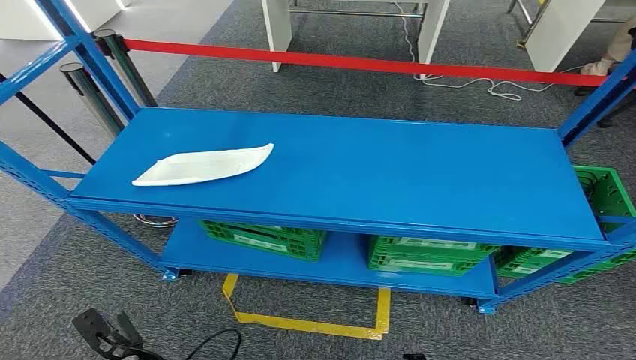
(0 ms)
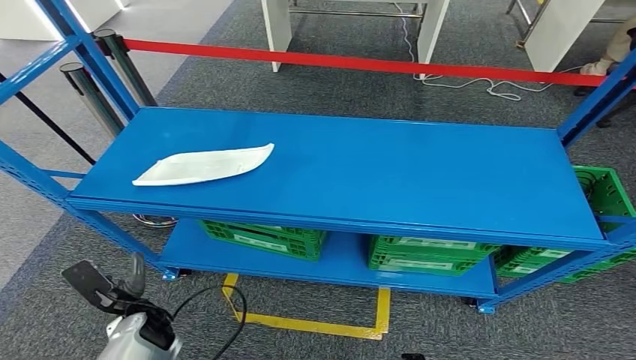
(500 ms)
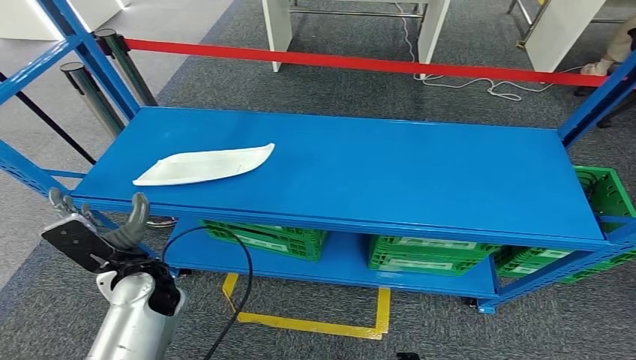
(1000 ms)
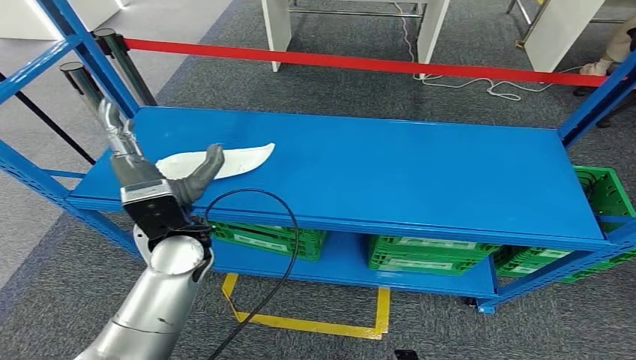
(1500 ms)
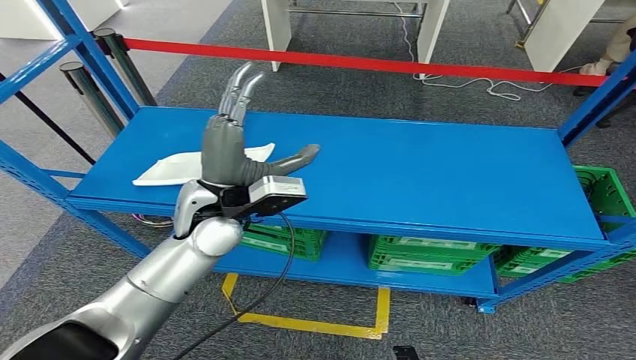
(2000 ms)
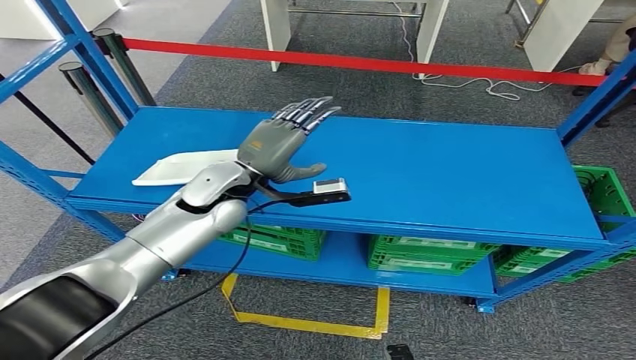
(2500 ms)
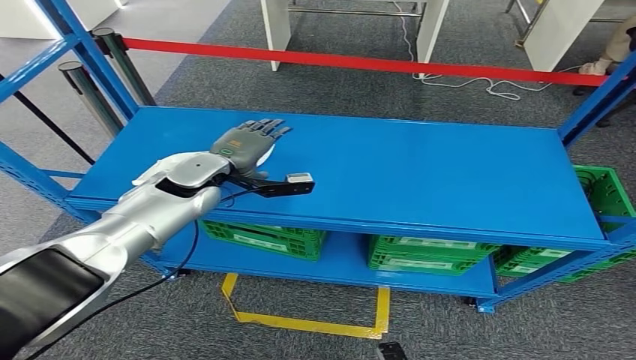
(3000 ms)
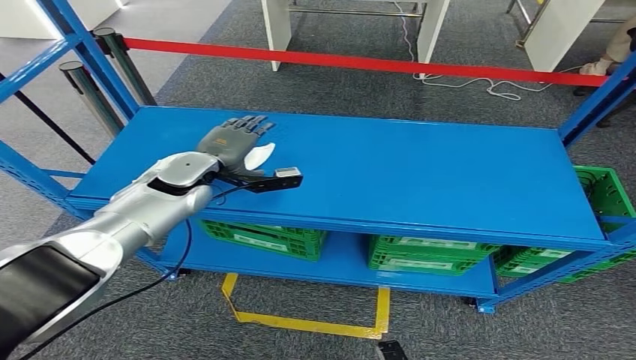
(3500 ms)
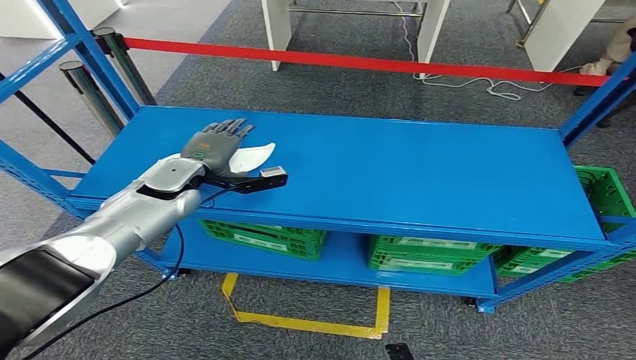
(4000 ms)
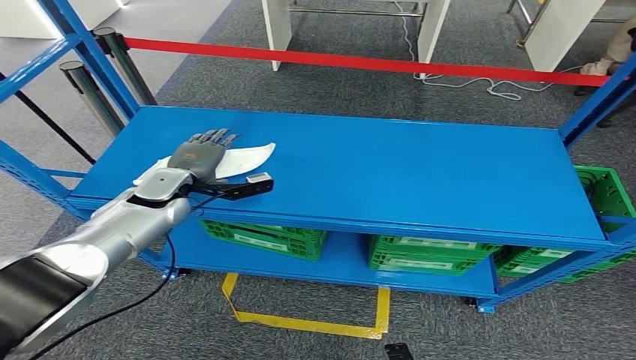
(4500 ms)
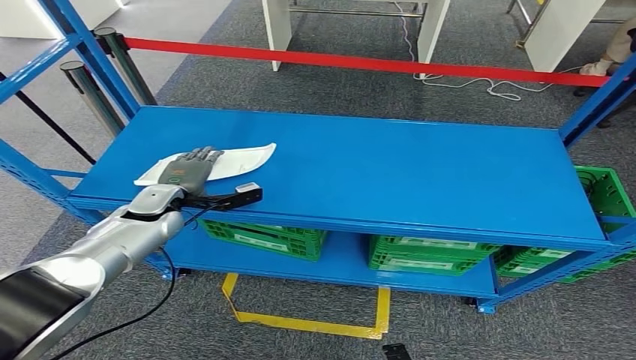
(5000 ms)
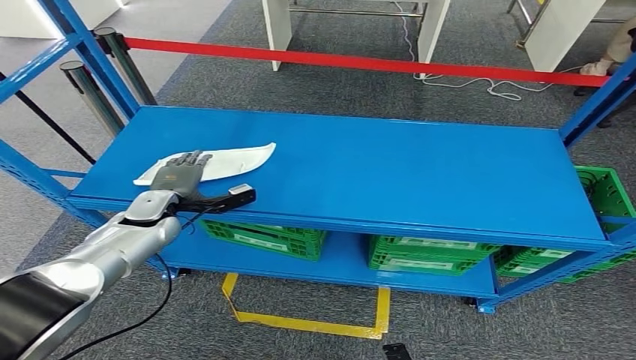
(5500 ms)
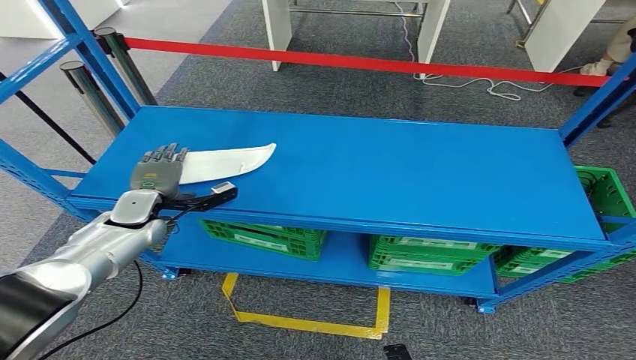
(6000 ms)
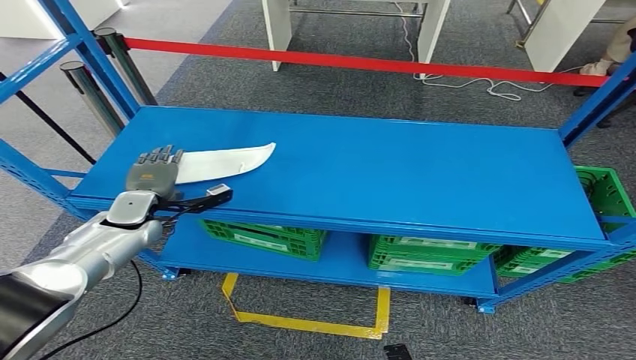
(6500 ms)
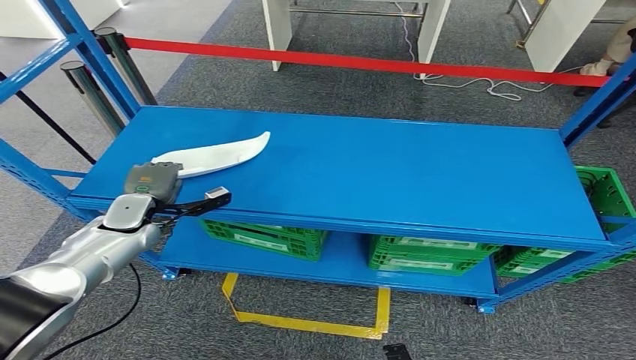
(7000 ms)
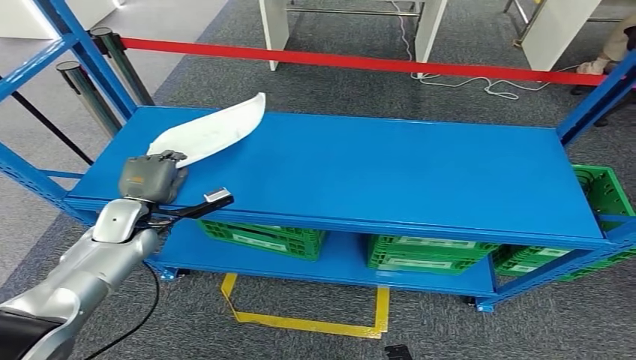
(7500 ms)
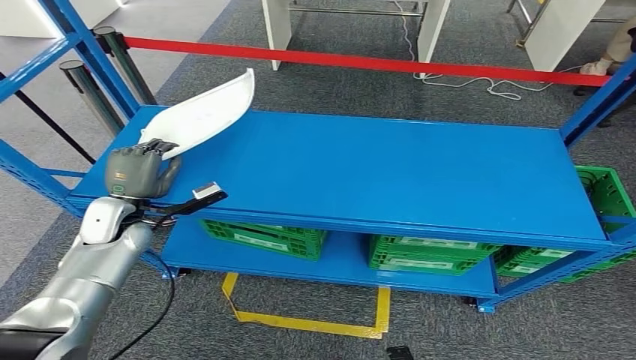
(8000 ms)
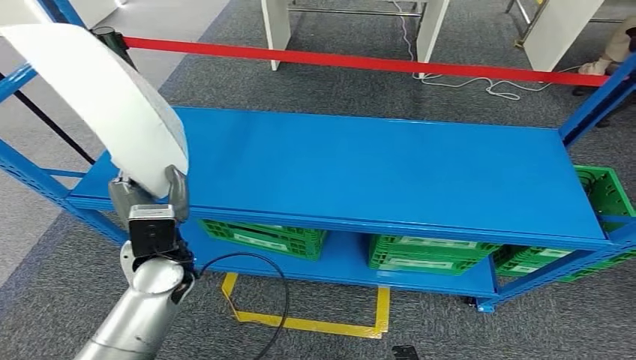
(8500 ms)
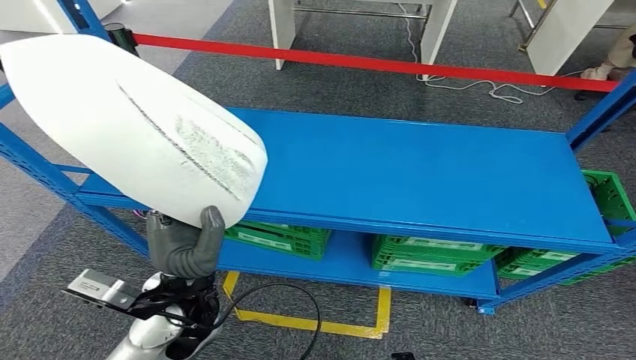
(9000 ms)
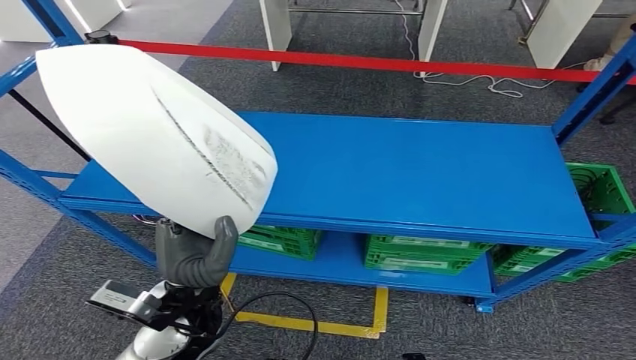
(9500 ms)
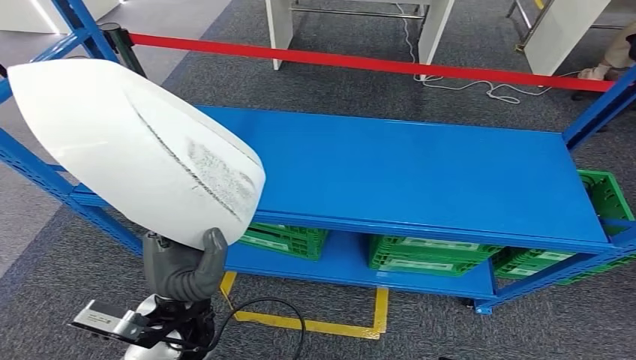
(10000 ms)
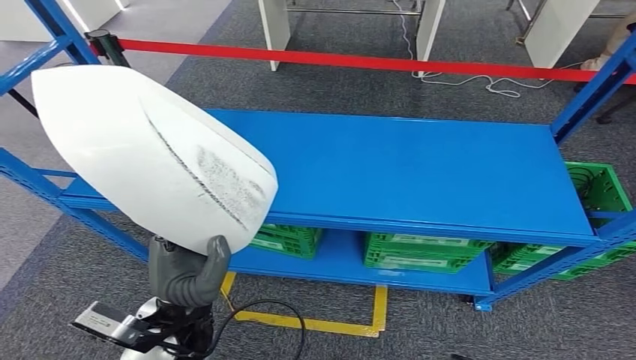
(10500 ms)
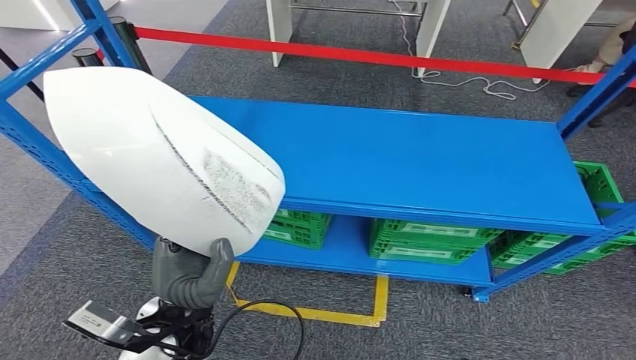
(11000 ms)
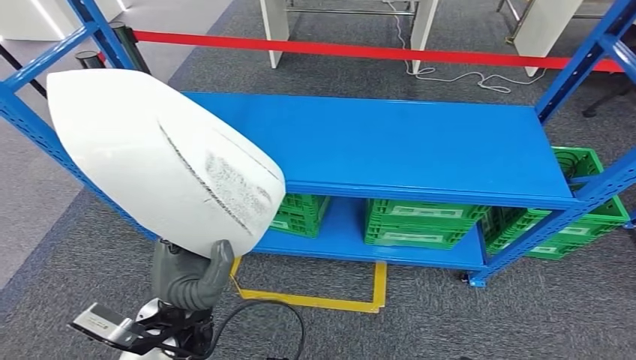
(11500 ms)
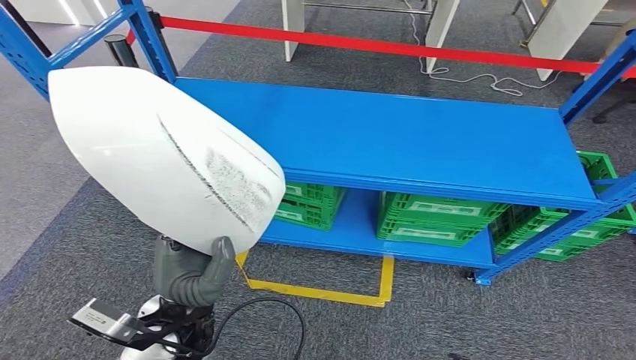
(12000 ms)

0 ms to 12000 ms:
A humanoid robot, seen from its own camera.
Step, 0 ms to 9500 ms: Pick up the small parts from the shelf.
2000 ms to 4000 ms: The left hand is displaced to the left, forward and downward by approximately 15 cm.
4000 ms to 6000 ms: The left hand heads to the left and downward, covering some 10 cm.

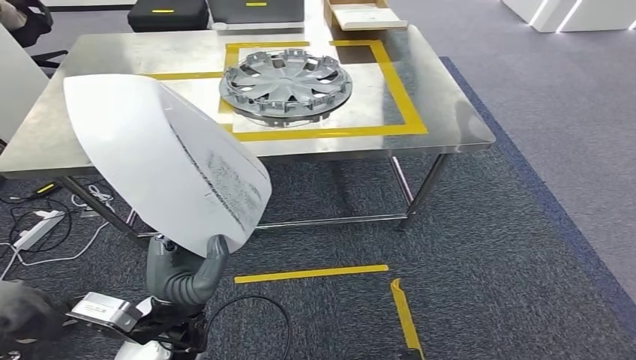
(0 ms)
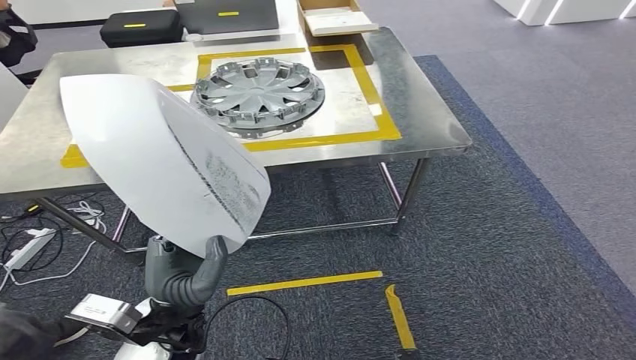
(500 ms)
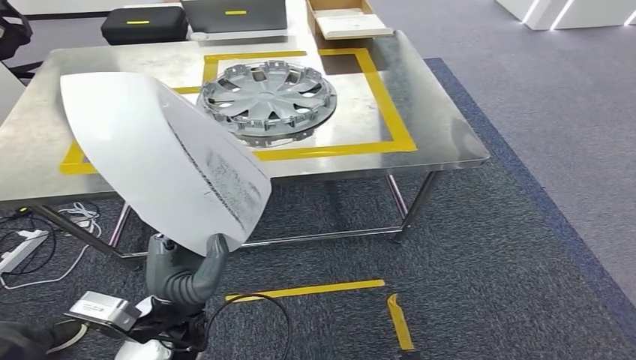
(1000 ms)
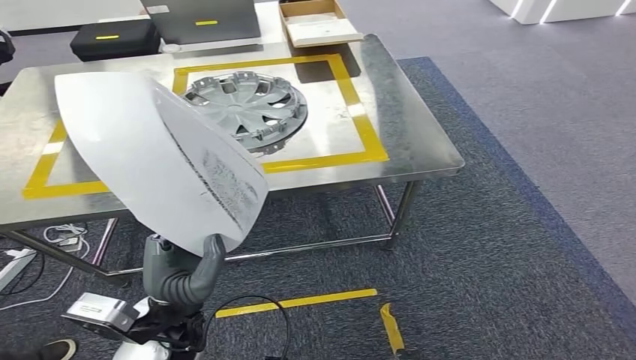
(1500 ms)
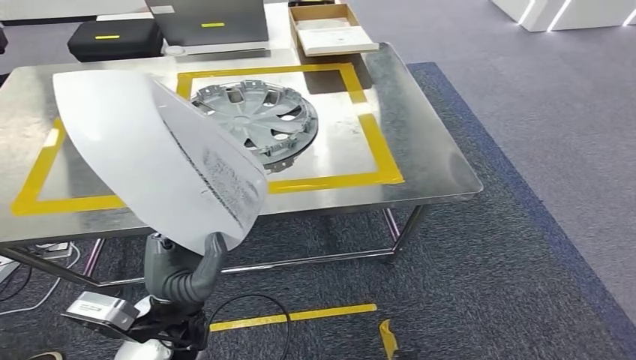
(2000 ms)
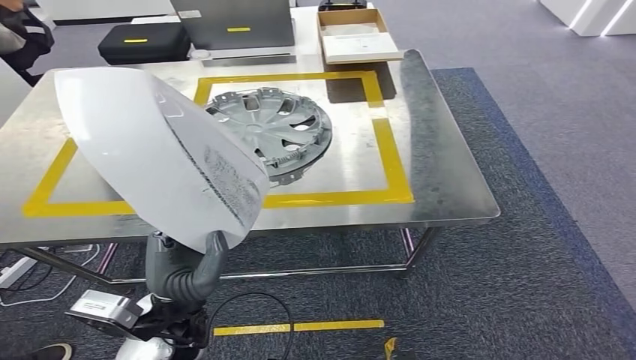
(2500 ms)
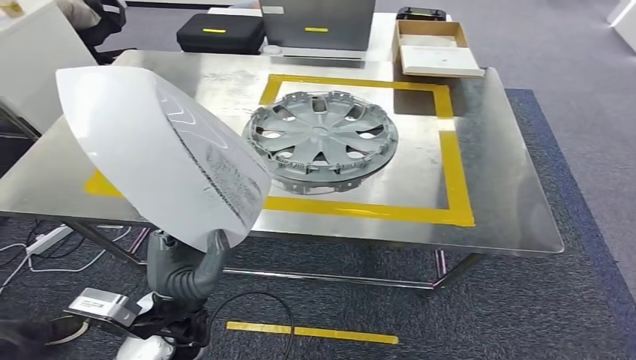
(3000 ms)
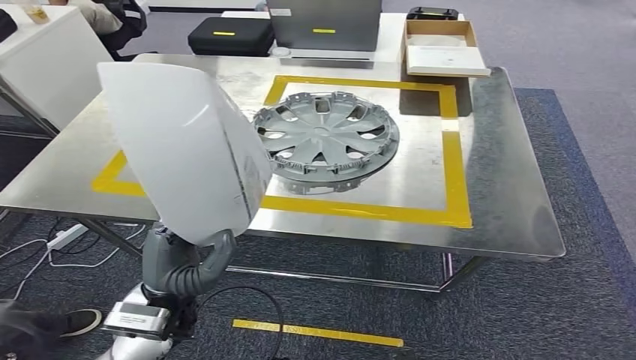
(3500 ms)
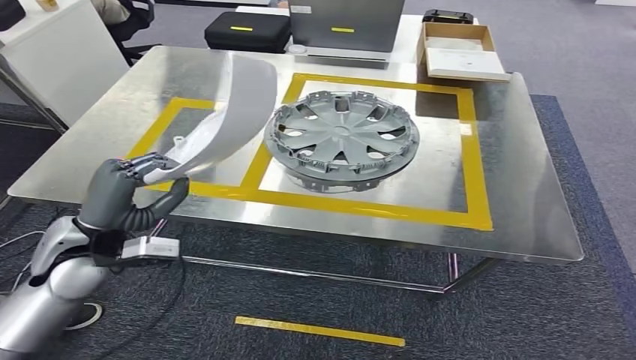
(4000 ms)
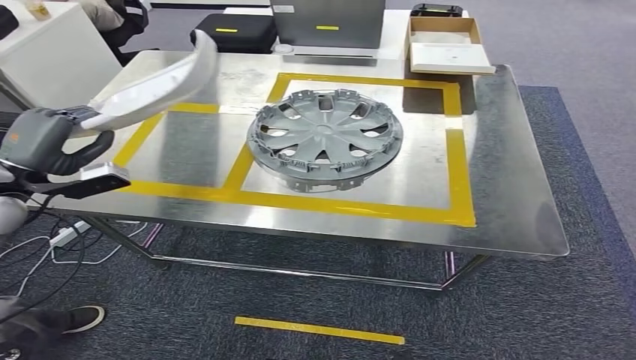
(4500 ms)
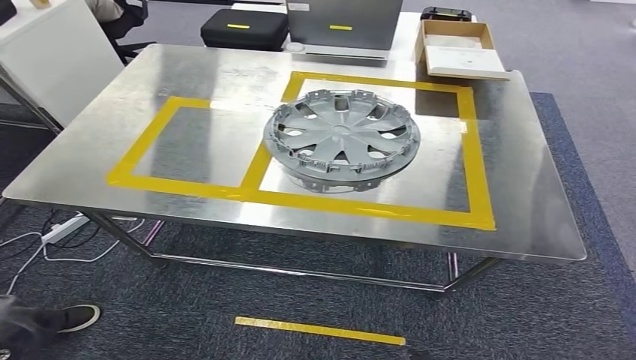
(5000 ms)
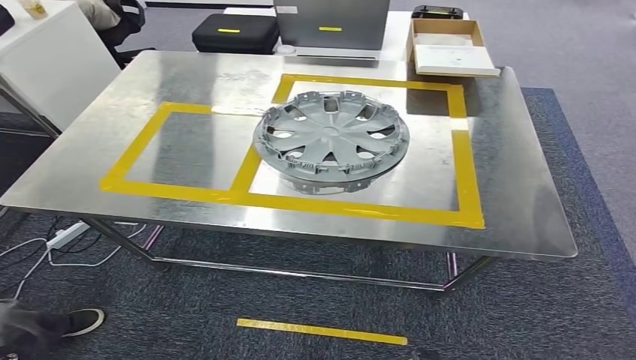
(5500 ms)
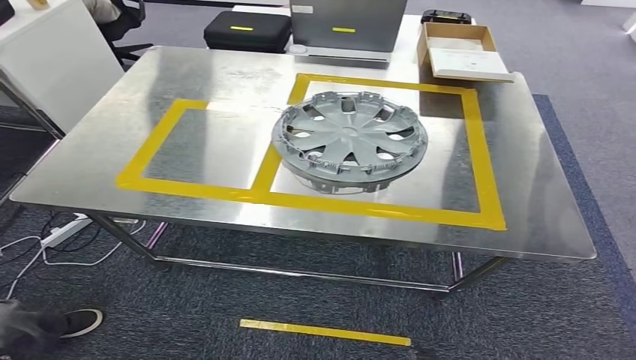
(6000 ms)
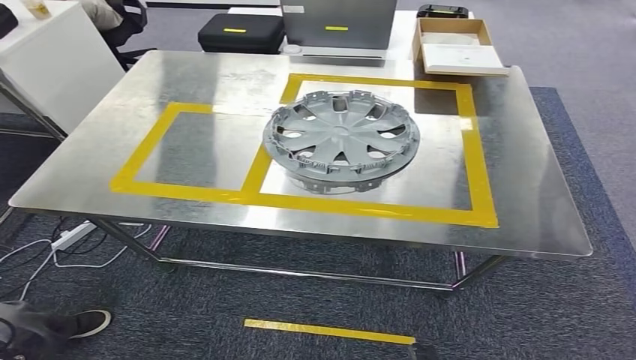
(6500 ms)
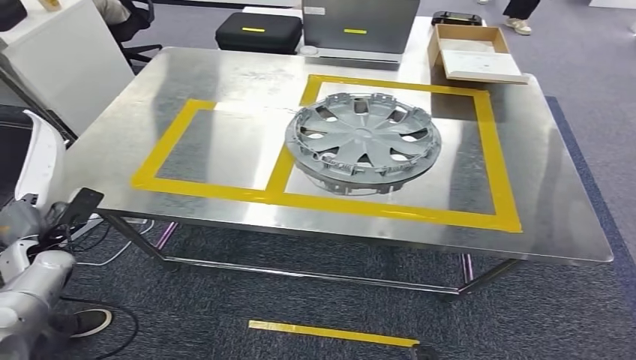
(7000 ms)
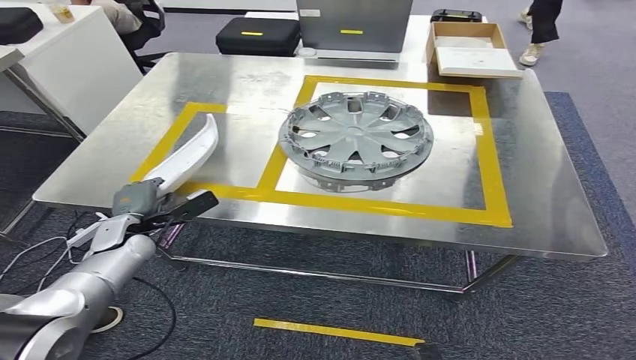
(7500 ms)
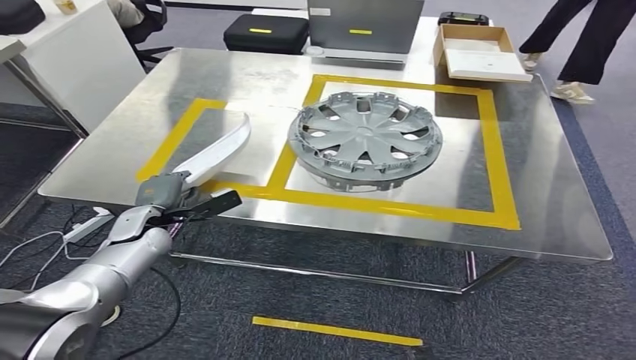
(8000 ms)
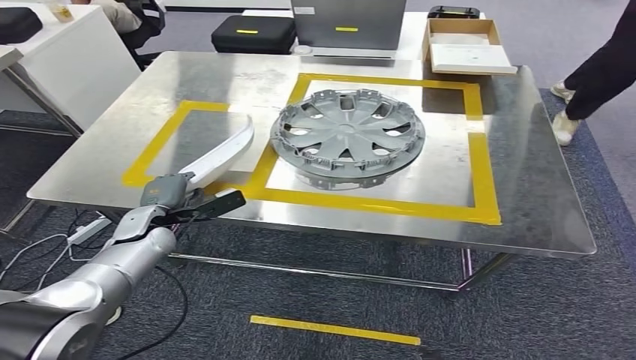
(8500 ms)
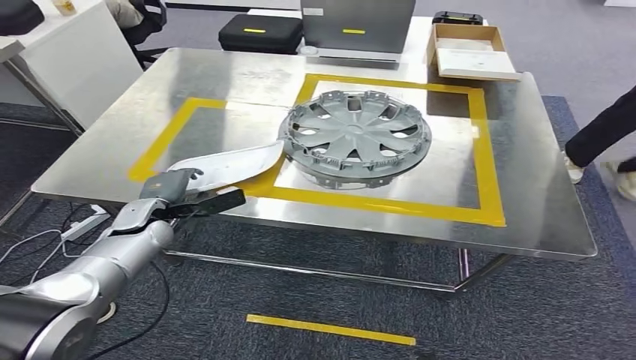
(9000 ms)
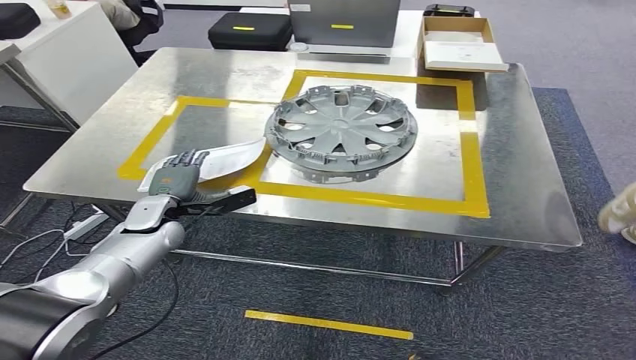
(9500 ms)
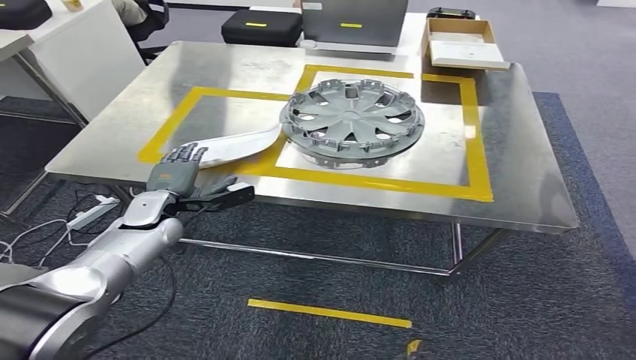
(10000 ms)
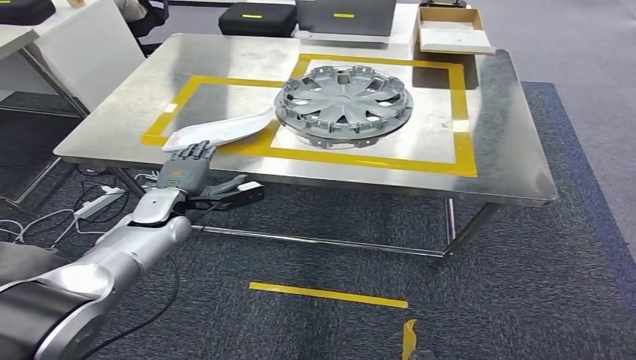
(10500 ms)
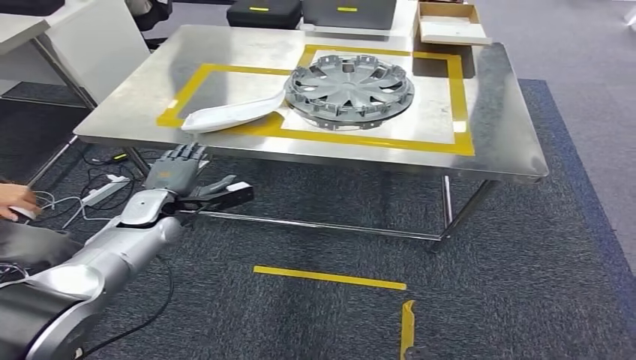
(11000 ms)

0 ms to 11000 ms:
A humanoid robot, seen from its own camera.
Step, 0 ms to 2000 ms: Move the small parts to the workbench.
